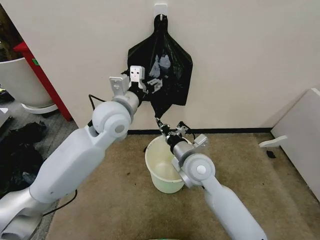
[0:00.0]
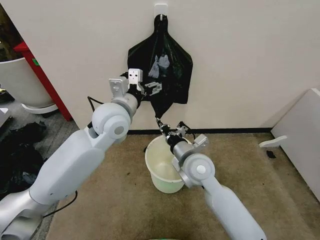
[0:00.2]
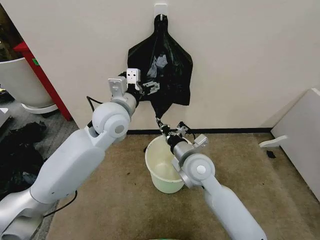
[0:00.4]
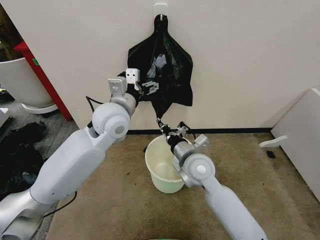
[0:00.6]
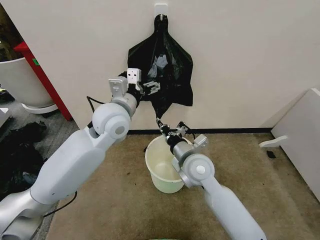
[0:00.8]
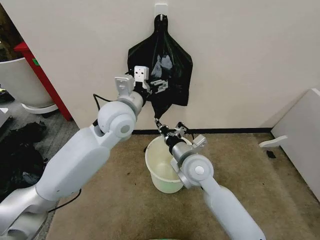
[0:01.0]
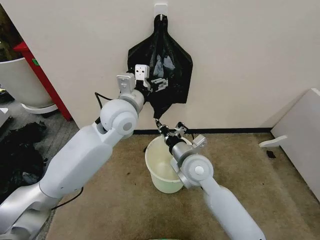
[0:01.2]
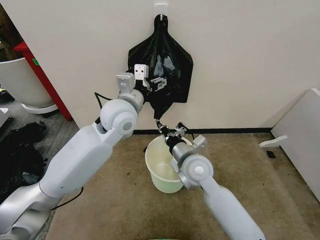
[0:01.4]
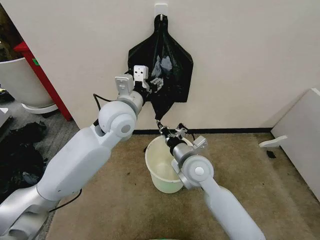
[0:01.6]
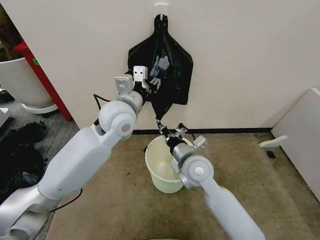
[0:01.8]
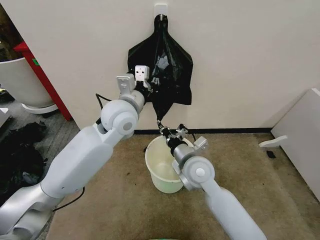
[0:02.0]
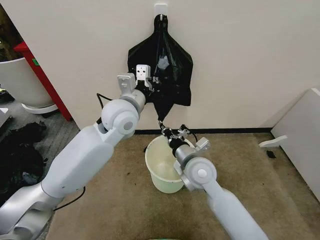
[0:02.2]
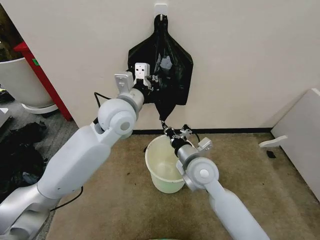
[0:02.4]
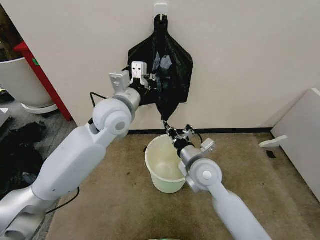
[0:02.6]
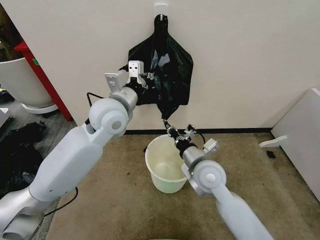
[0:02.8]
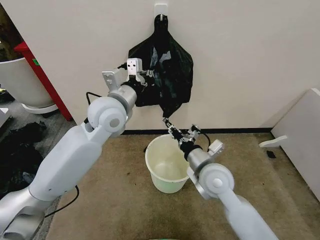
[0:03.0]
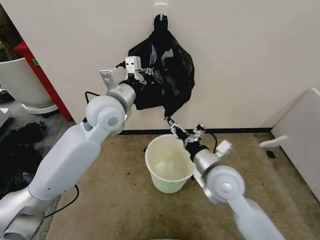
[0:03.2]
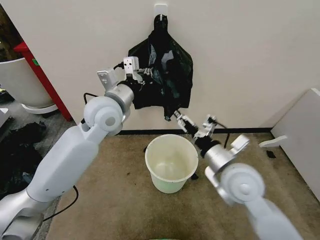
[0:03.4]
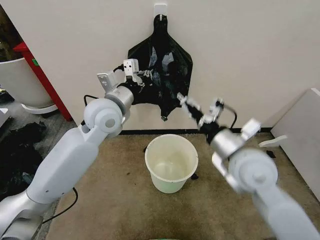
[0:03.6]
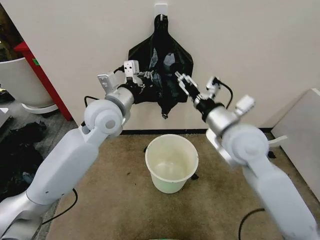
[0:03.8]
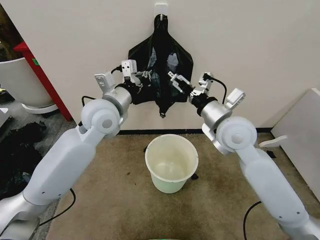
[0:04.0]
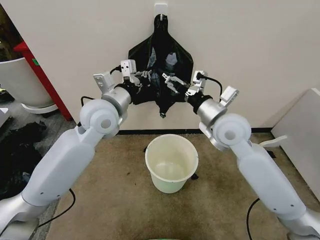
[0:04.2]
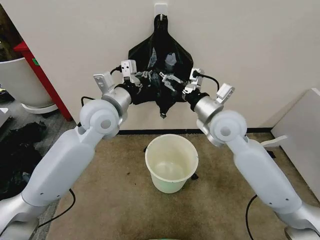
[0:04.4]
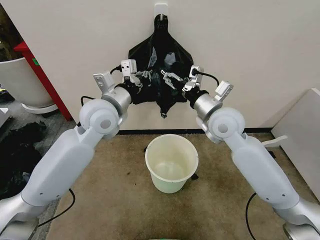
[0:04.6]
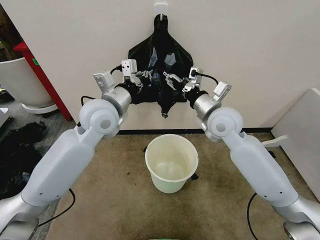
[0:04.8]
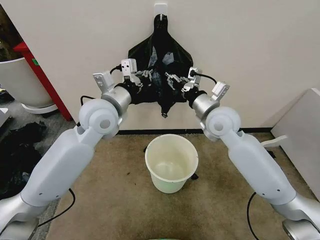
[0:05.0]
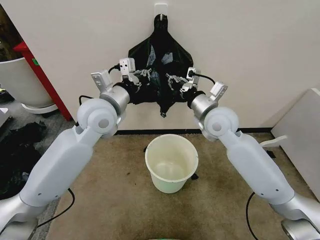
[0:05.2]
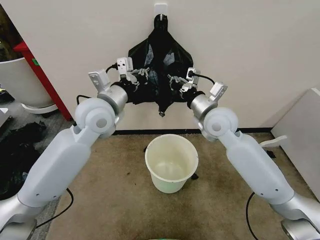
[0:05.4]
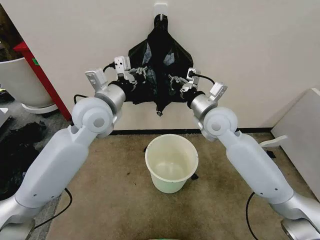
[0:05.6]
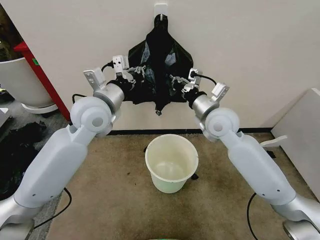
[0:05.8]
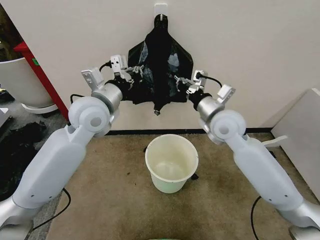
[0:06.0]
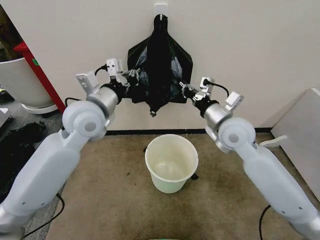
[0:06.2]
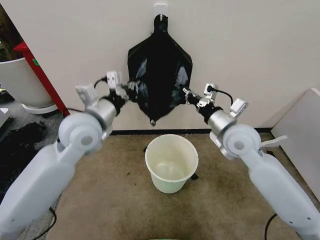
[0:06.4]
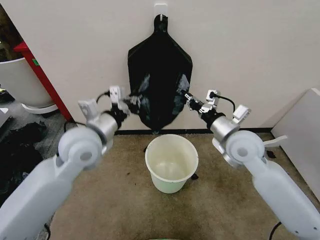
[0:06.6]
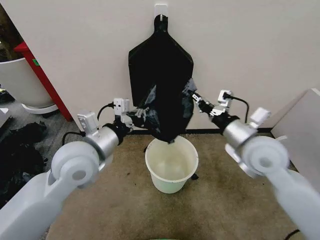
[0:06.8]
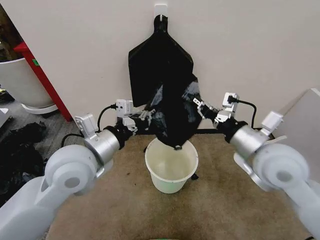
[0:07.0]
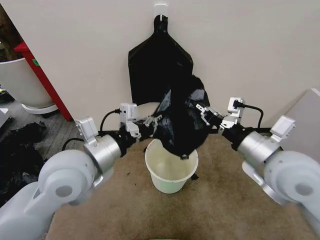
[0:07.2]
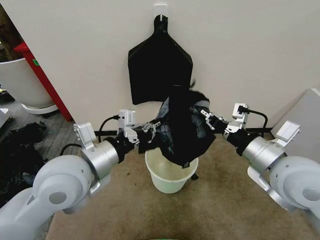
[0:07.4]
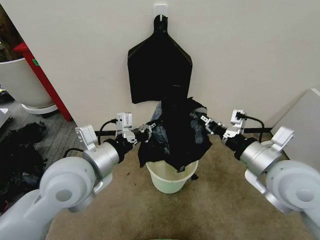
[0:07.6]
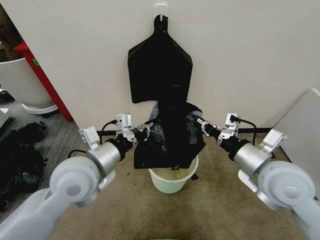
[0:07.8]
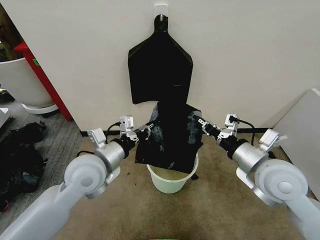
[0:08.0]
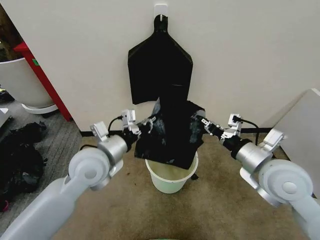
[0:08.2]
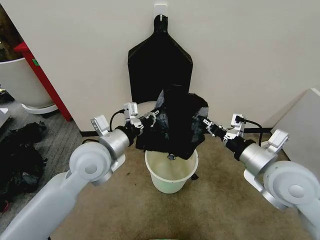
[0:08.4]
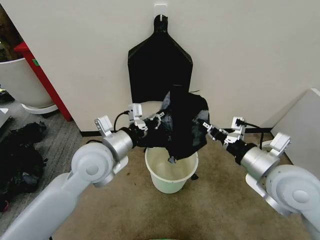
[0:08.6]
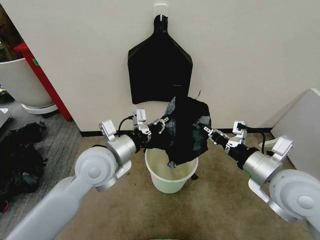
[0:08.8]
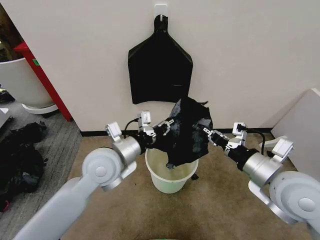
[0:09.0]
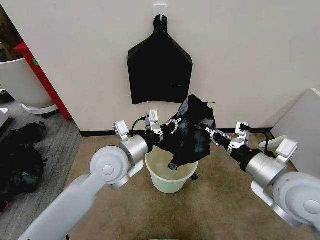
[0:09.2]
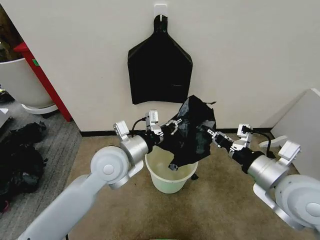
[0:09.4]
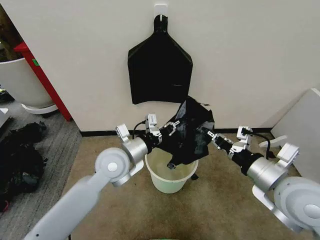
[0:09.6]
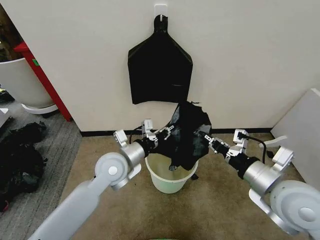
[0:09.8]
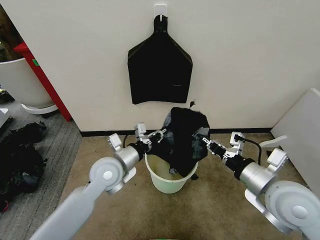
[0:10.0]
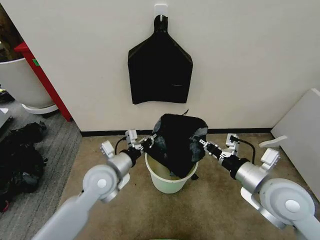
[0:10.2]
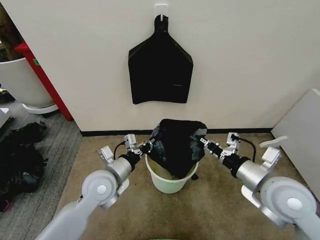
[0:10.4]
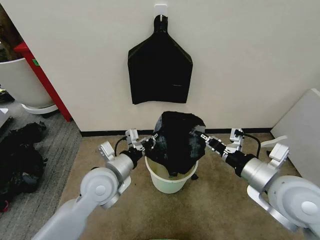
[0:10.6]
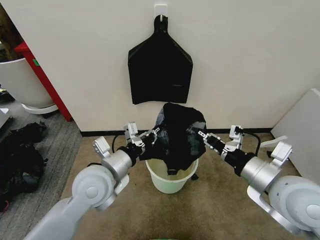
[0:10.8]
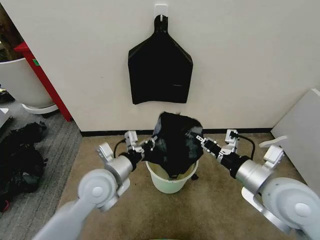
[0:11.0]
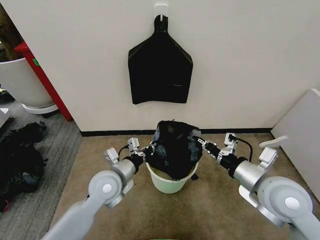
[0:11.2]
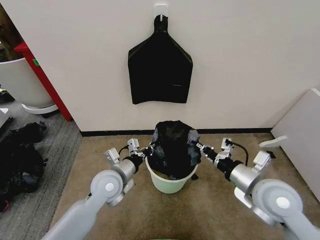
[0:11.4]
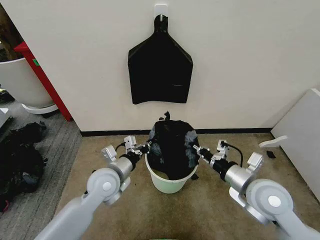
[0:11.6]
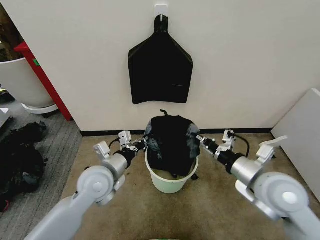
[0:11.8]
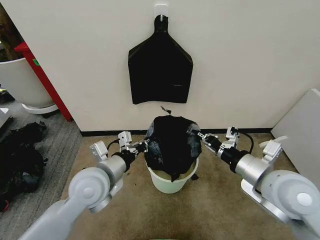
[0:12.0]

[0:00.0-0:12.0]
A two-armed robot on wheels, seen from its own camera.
Task of the whole recording: Place the garbage bag over the trash bin.
0:00.0 to 0:01.6: The grippers move only a little.
0:01.6 to 0:03.0: The left gripper closes up, while the right gripper changes place by approximately 5 cm.
0:03.0 to 0:04.4: The right gripper shifts approximately 15 cm upward and forward, and opens its fingers.
0:04.4 to 0:06.0: The right gripper closes its fingers.
0:06.0 to 0:07.6: The left gripper shifts some 15 cm backward; the right gripper travels backward and to the right by approximately 20 cm.
0:07.6 to 0:09.0: The left gripper moves forward, some 5 cm.
0:09.0 to 0:10.4: The left gripper moves downward, roughly 10 cm.
0:10.4 to 0:12.0: The left gripper swings up and down, approximately 10 cm each way, with 2 reversals, while the right gripper swings up and down, approximately 10 cm each way, with 2 reversals.

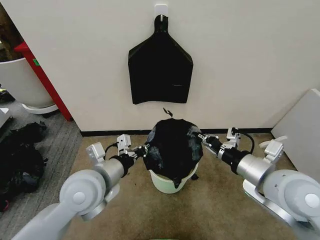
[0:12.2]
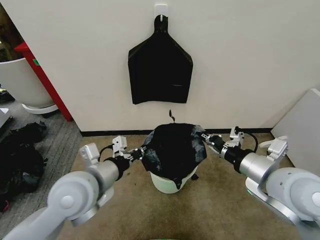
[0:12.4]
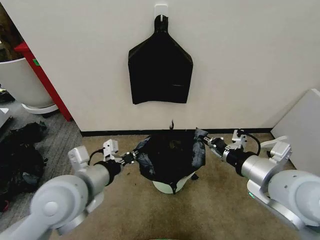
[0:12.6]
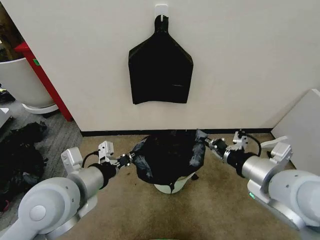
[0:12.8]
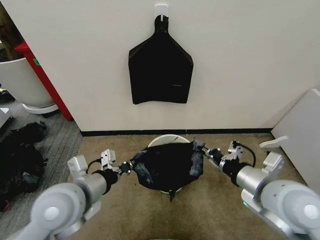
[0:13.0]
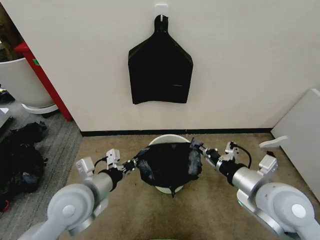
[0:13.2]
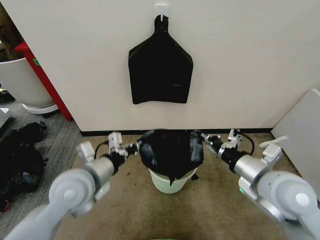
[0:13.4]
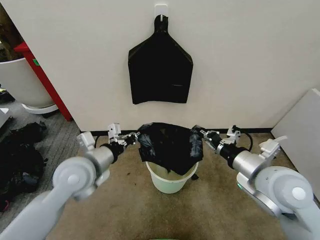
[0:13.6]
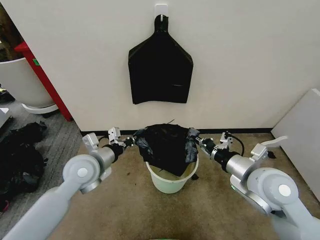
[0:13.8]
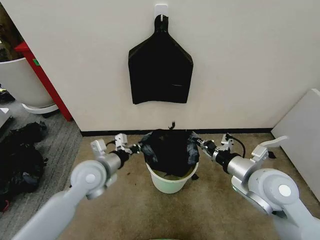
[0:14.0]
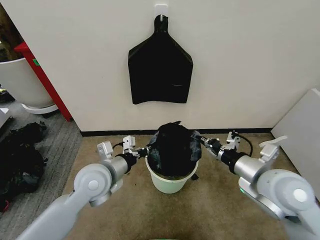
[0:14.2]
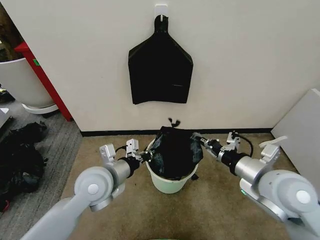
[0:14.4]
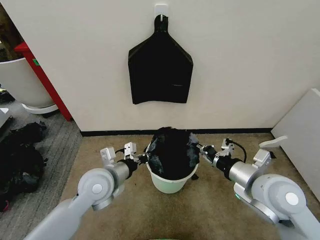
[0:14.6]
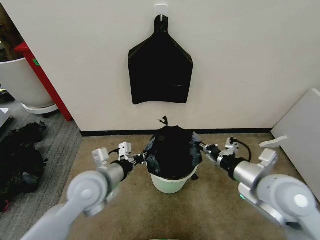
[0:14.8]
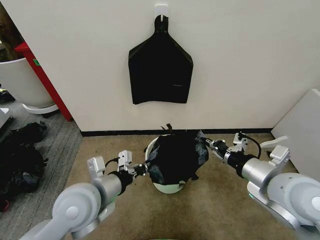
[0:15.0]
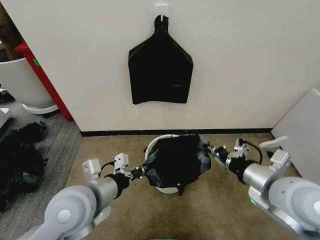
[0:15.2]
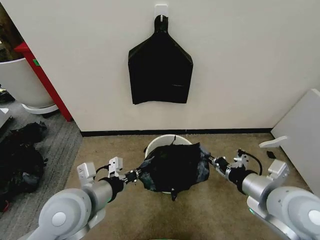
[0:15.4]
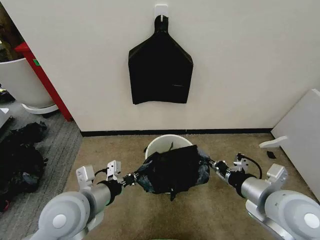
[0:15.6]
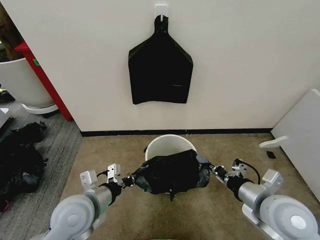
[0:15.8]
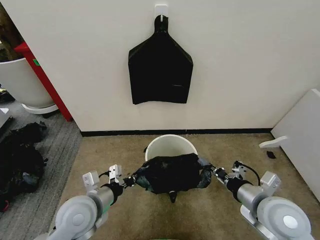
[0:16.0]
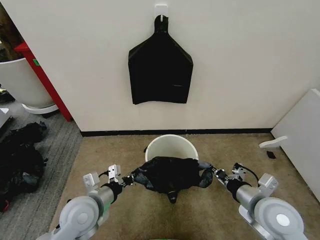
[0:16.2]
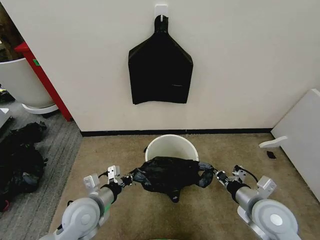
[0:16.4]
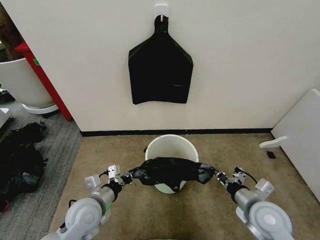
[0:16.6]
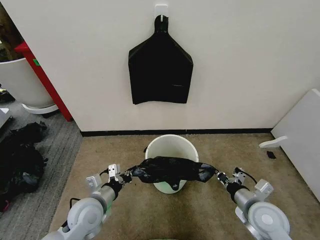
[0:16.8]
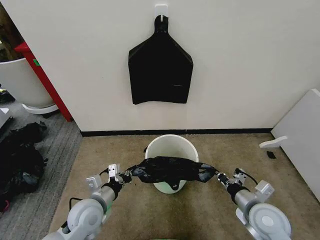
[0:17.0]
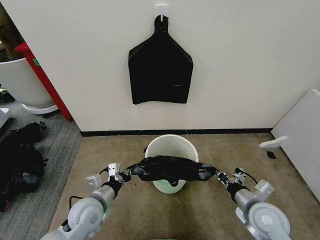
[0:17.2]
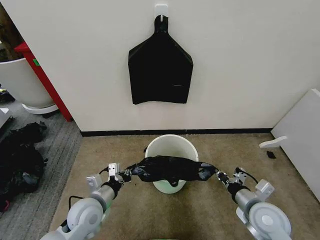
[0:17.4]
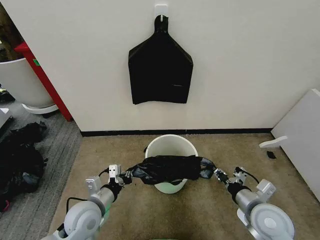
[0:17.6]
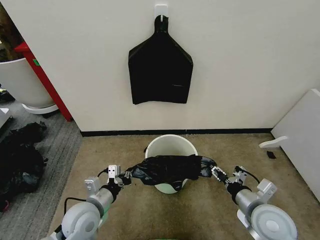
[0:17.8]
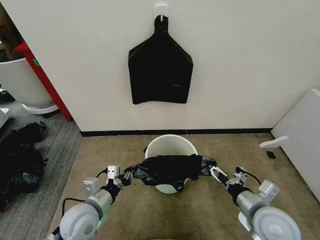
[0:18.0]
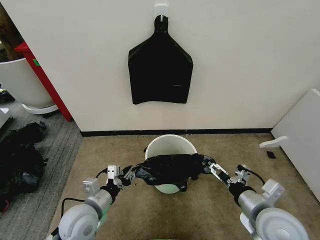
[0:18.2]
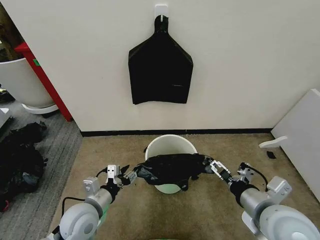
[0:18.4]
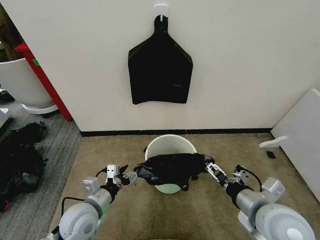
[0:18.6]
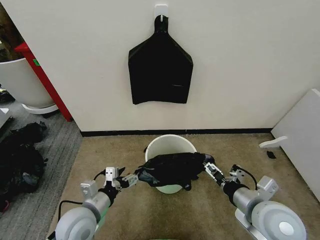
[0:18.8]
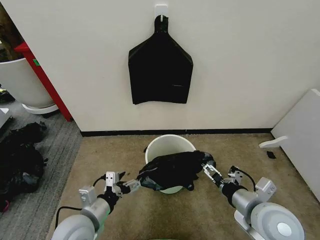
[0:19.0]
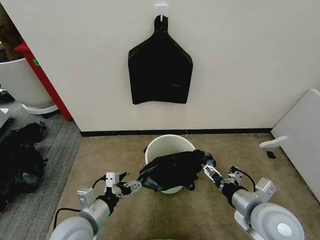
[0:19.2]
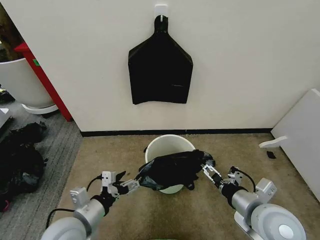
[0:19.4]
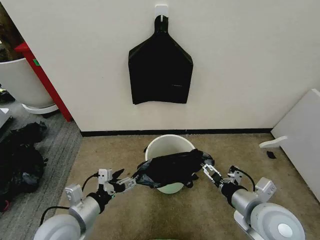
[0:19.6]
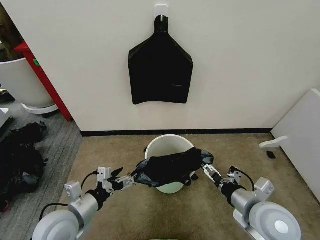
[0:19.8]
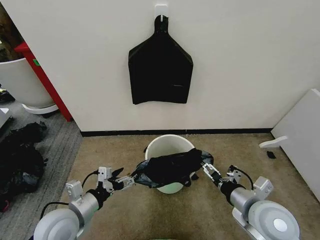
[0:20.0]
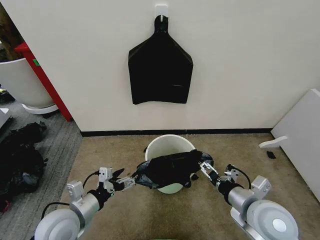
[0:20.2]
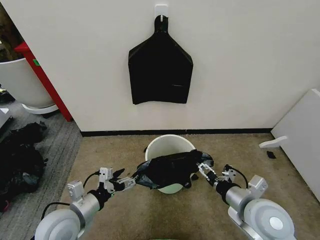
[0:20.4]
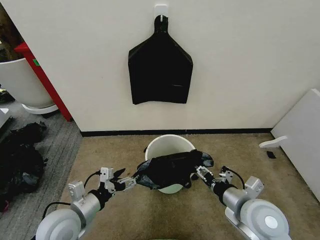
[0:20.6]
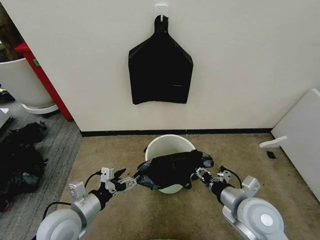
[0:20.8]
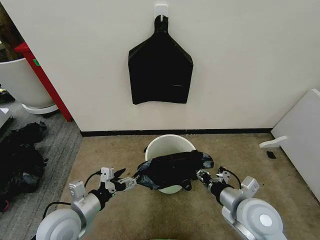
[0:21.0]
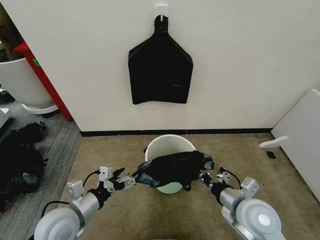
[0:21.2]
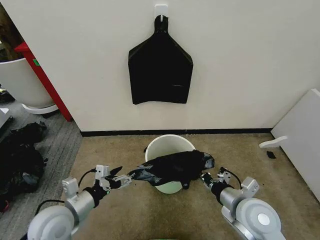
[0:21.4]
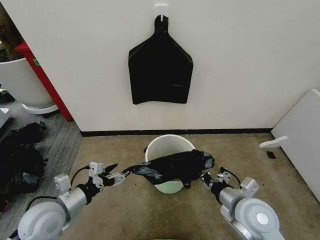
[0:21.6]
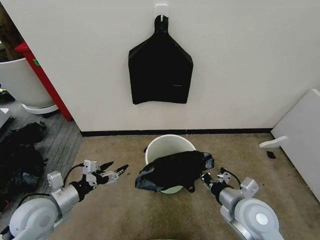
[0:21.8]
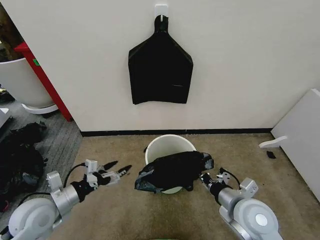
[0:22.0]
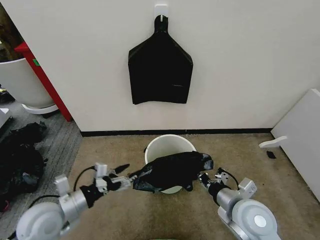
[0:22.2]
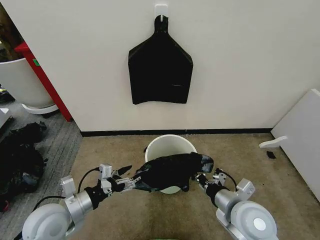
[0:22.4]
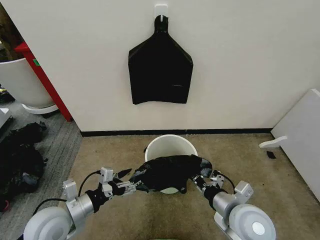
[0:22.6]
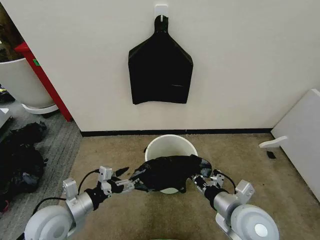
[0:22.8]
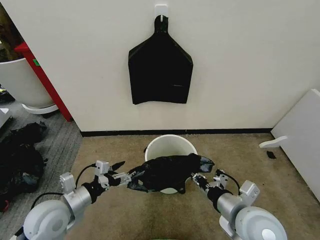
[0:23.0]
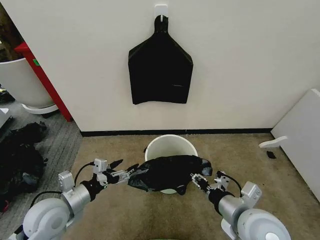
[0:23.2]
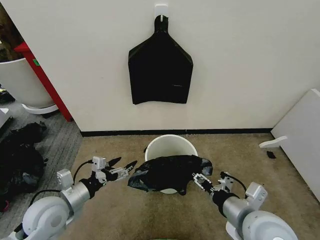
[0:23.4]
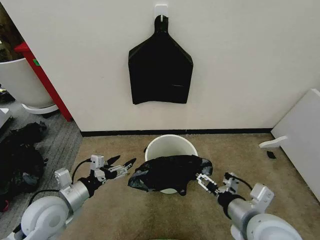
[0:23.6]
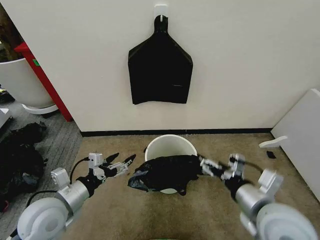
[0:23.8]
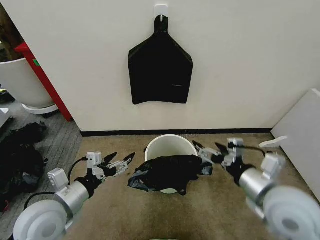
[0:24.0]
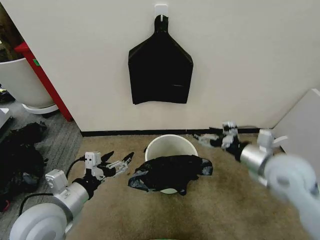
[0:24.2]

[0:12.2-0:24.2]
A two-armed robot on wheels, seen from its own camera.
Task of the whole recording: Place the garbage bag over the trash bin.
0:12.2 to 0:13.8: The left gripper moves forward, some 5 cm. Meanwhile the right gripper ends up about 5 cm from where it was.
0:13.8 to 0:15.2: The left gripper is displaced backward by roughly 10 cm, while the right gripper ends up roughly 5 cm from where it was.
0:15.2 to 0:16.6: The two grippers go about 15 cm downward.
0:16.6 to 0:18.2: The right gripper is displaced upward by approximately 5 cm, and opens up. The left gripper opens up.
0:18.2 to 0:19.8: The left gripper ends up approximately 5 cm from where it was, and opens its fingers.
0:19.8 to 0:21.2: The right gripper closes up.
0:22.6 to 0:24.2: The right gripper moves forward, to the right and upward, about 20 cm, and opens. Meanwhile the left gripper travels upward by approximately 5 cm.
